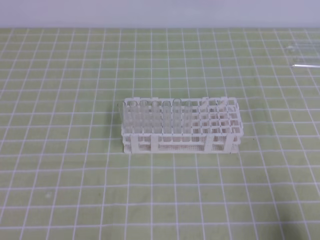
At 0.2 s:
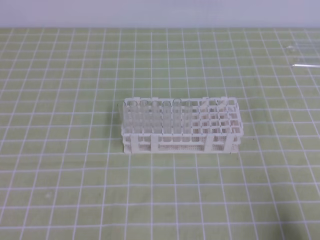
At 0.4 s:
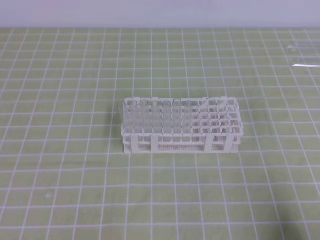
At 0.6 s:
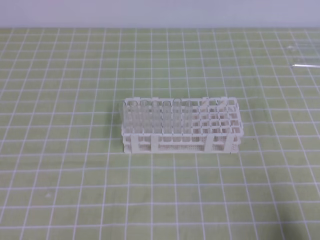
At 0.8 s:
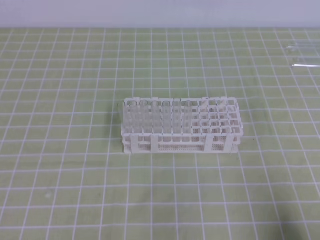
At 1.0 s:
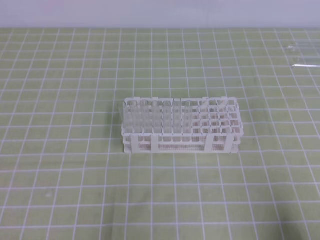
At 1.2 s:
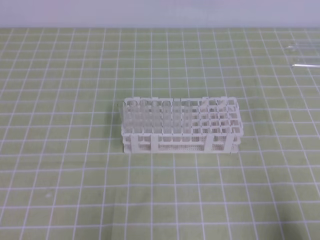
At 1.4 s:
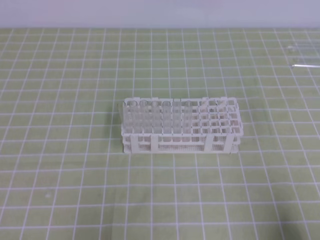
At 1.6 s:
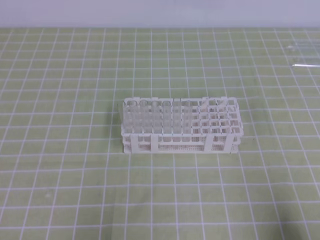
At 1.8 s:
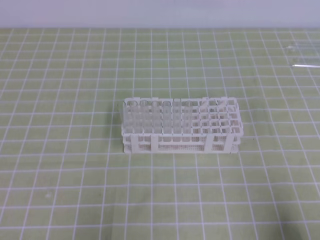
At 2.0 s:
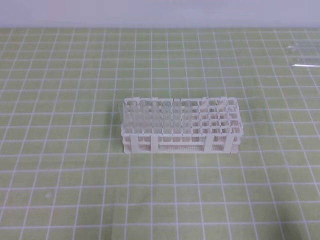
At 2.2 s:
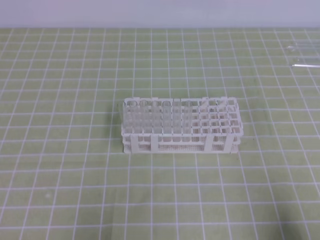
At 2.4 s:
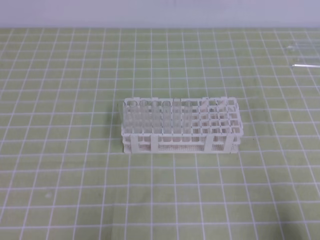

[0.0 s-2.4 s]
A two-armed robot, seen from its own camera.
1.2 to 2.4 s: The two grippers keep their place.

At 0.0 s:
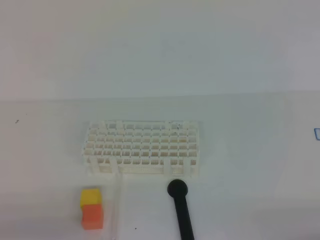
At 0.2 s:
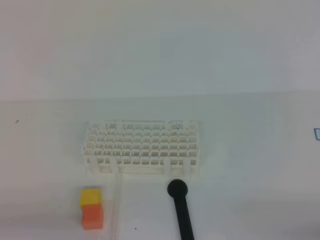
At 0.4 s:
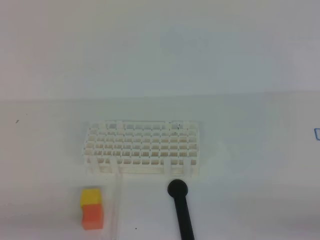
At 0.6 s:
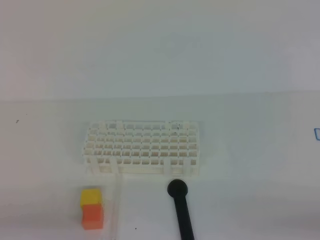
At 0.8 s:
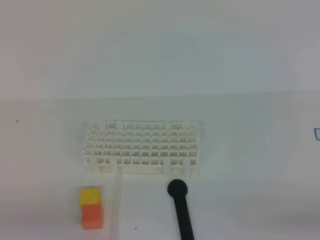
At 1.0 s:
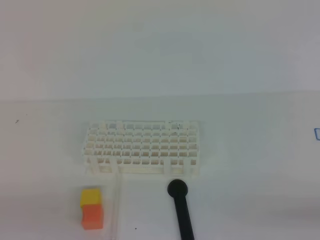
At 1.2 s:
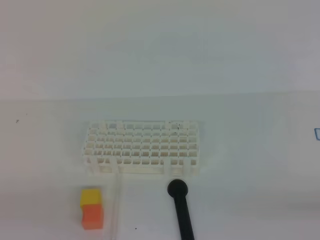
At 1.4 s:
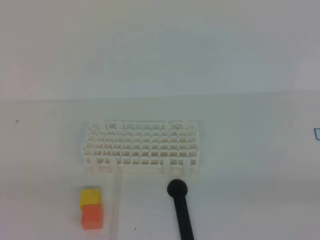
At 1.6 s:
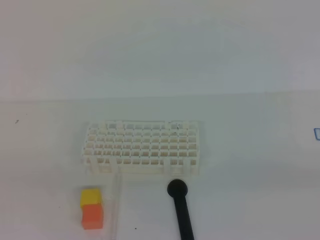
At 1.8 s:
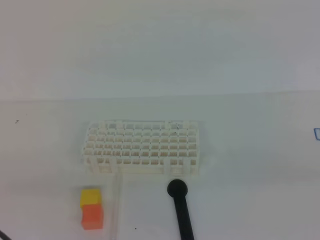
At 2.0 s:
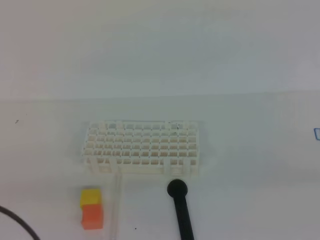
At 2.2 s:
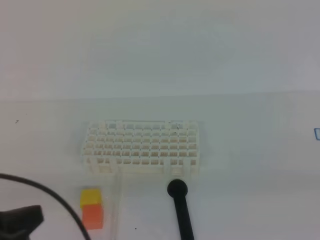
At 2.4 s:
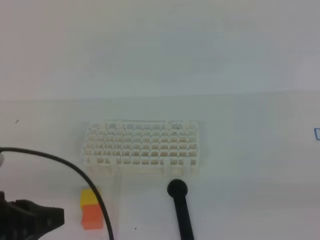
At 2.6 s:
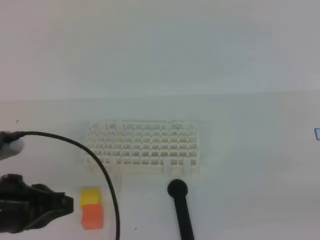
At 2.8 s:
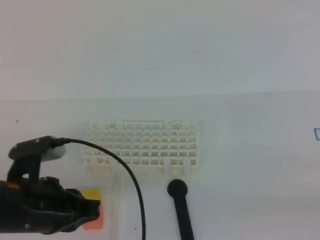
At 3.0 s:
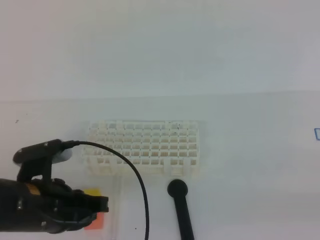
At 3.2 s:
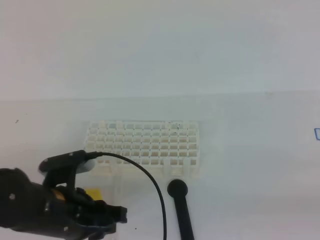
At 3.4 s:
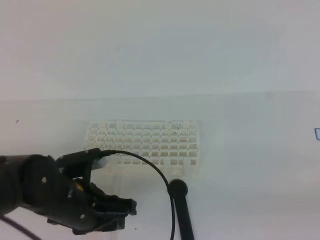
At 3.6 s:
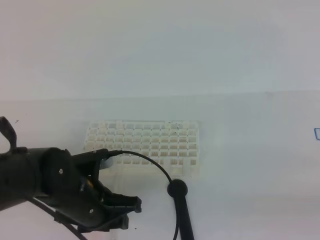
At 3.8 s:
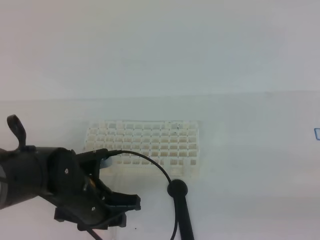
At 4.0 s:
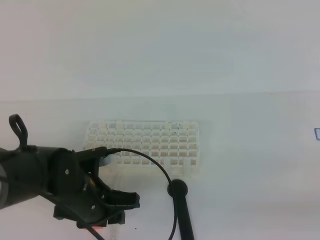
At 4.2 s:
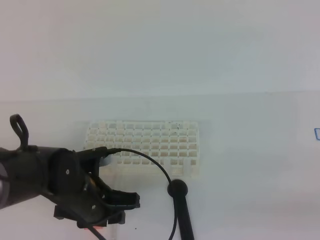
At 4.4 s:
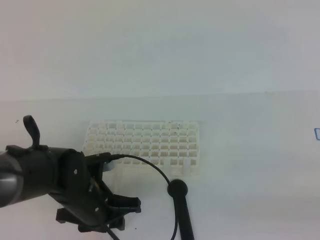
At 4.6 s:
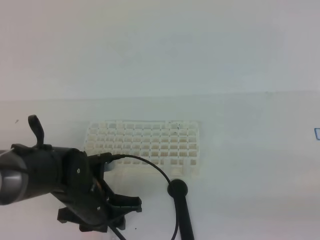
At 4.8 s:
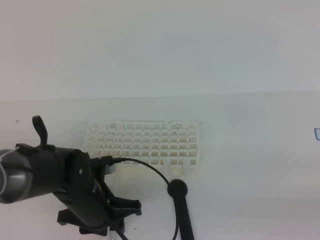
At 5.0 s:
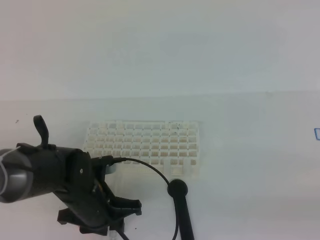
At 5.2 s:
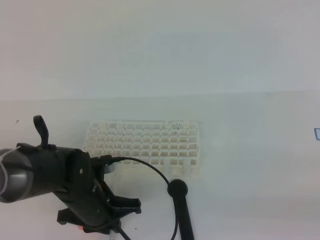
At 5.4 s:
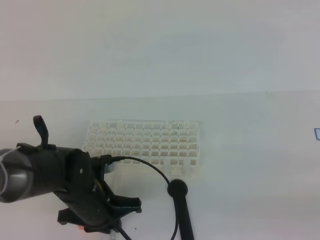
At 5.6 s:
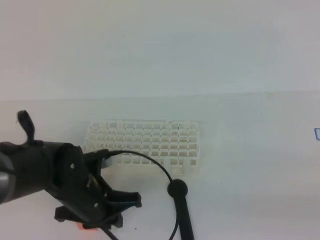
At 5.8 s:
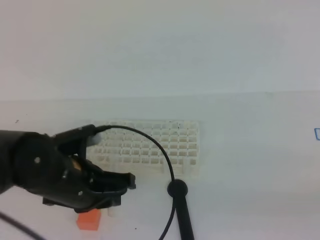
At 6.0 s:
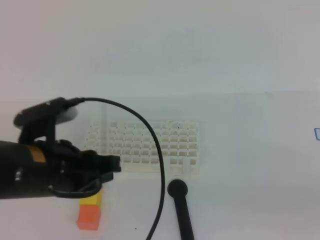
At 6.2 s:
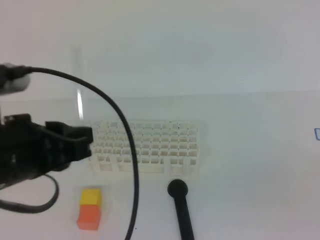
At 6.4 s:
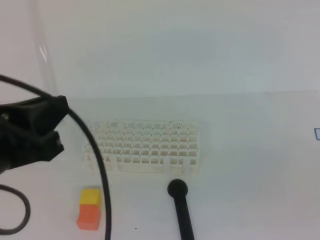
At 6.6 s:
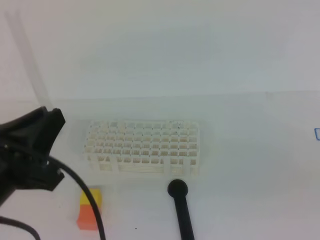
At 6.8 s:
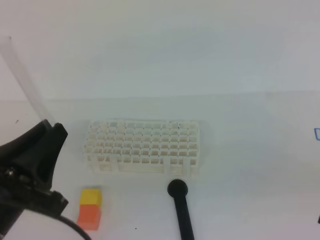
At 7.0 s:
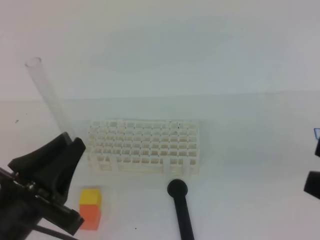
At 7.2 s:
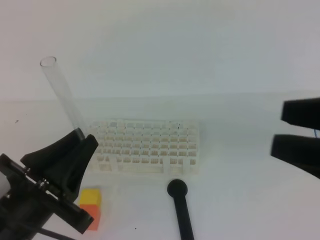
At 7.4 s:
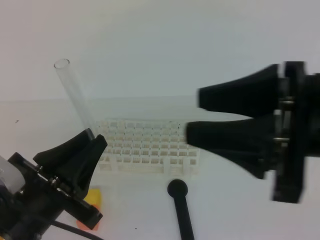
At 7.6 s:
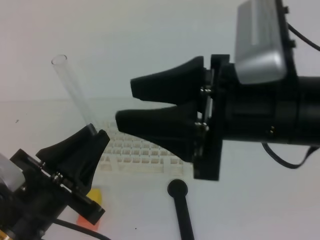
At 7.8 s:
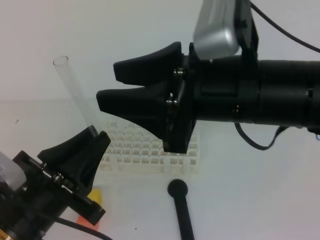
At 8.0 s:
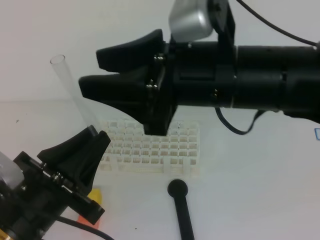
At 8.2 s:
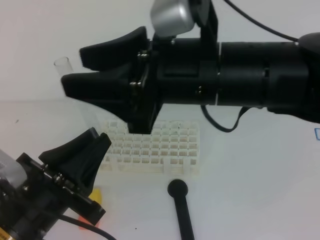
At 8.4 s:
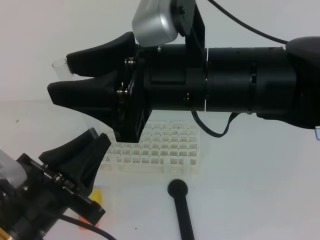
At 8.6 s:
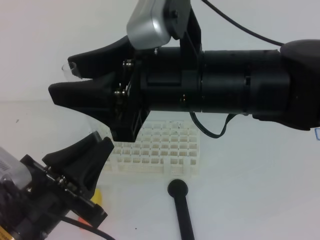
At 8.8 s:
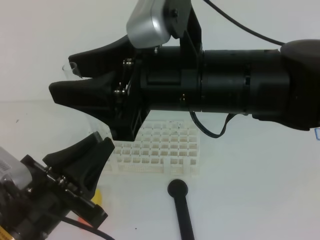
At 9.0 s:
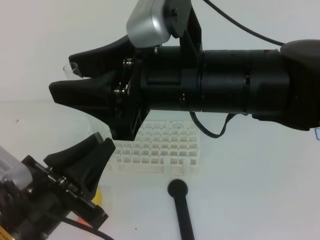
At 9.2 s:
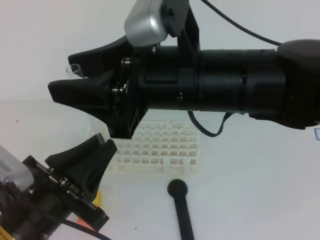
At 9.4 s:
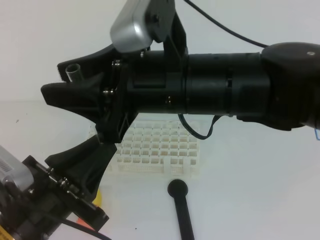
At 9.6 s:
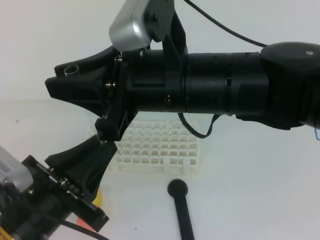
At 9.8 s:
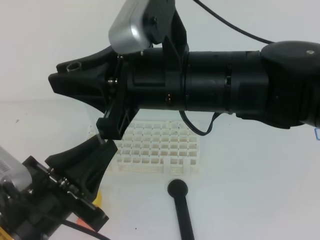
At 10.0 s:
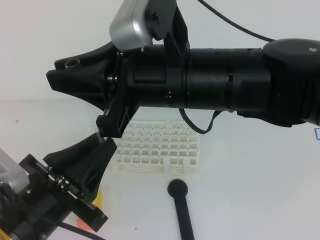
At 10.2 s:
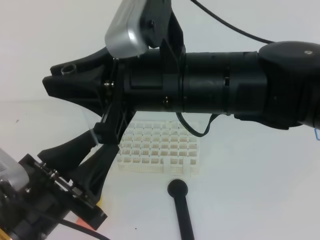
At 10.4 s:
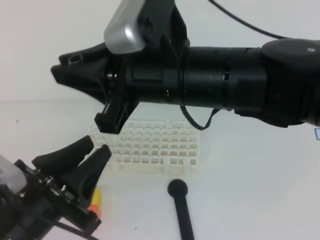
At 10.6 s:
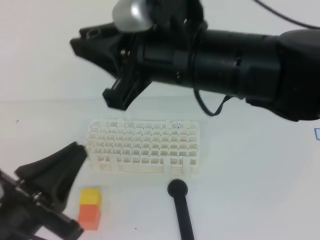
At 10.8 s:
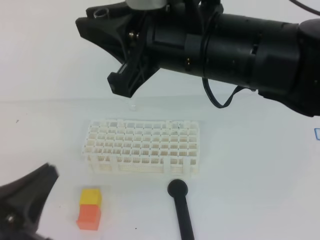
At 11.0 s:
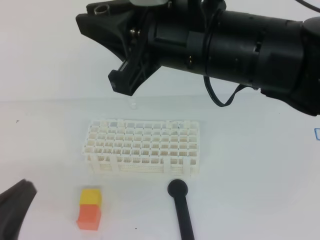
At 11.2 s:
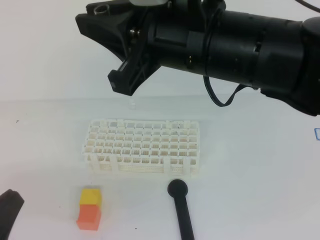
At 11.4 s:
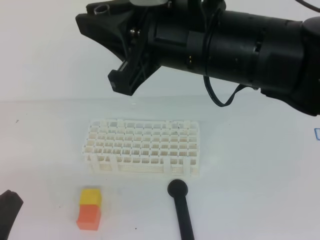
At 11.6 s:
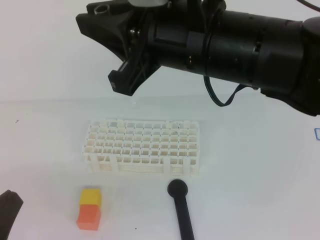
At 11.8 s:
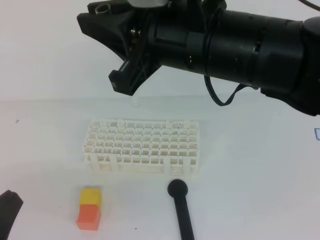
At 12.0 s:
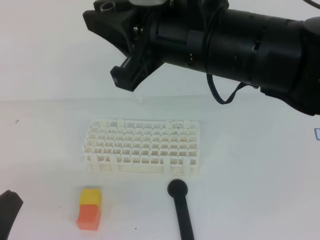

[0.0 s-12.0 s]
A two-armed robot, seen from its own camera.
1.6 to 3.0 s: The left gripper shifts approximately 20 cm forward, to the right and downward.
3.0 to 4.4 s: The right gripper opens up. Meanwhile the left gripper travels downward, forward and to the right by approximately 10 cm, and opens.
4.4 to 6.0 s: The left gripper goes about 10 cm upward, and closes up.
6.0 to 7.6 s: The right gripper moves to the left, forward and upward, roughly 25 cm, and opens. Meanwhile the left gripper travels backward by roughly 5 cm, and moves approximately 5 cm upward and comes back.
7.6 to 9.0 s: The right gripper travels to the left by approximately 10 cm.
9.0 to 10.4 s: The left gripper opens up. The right gripper closes.
10.4 to 12.0 s: The left gripper heads to the left and backward, covering approximately 10 cm, and closes.

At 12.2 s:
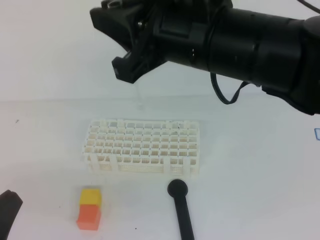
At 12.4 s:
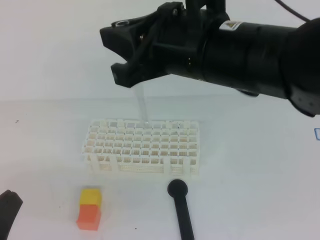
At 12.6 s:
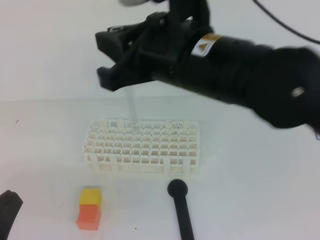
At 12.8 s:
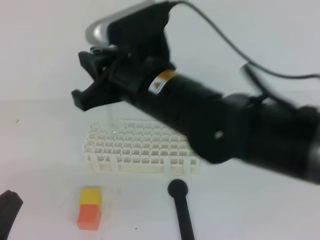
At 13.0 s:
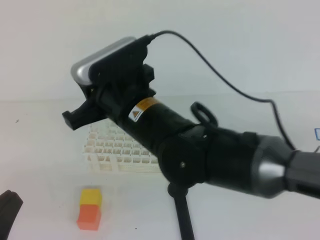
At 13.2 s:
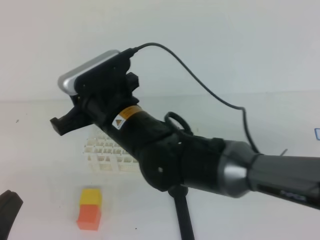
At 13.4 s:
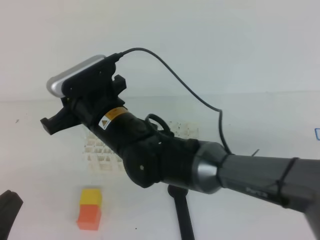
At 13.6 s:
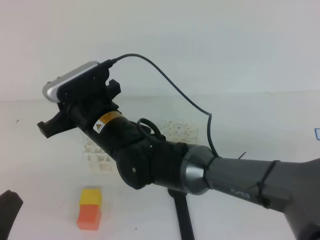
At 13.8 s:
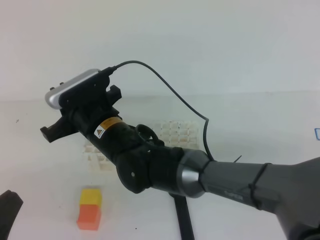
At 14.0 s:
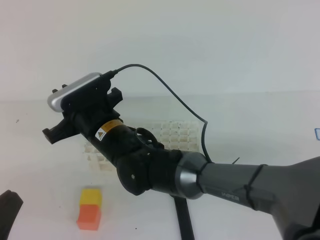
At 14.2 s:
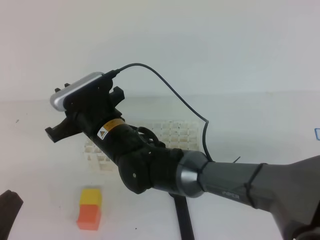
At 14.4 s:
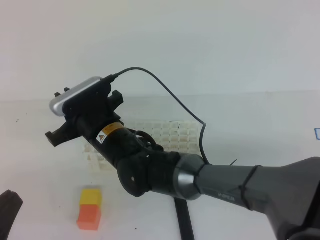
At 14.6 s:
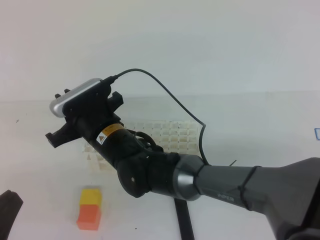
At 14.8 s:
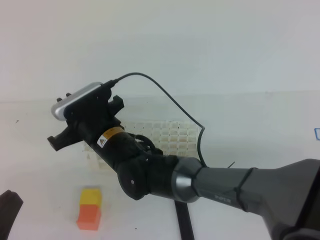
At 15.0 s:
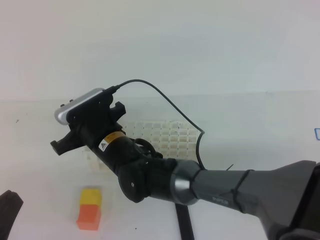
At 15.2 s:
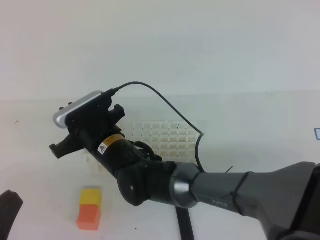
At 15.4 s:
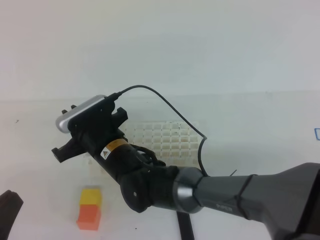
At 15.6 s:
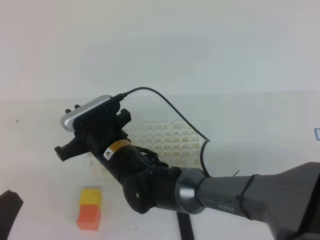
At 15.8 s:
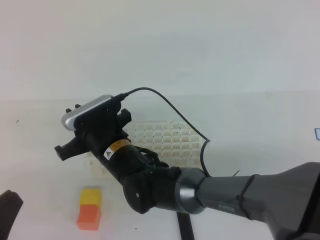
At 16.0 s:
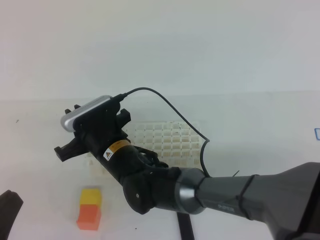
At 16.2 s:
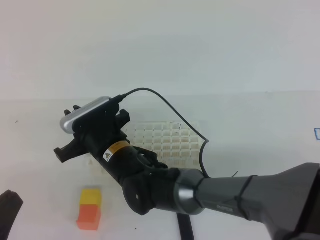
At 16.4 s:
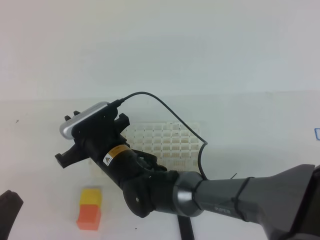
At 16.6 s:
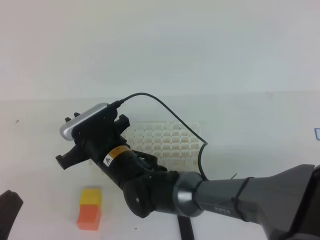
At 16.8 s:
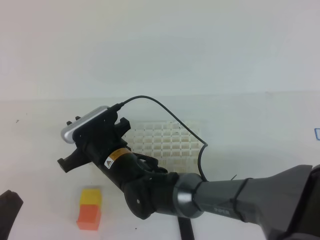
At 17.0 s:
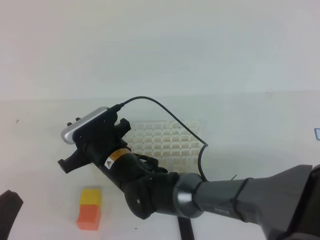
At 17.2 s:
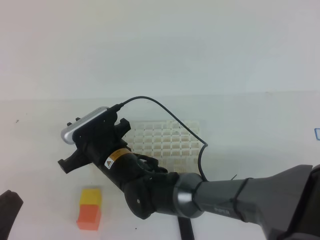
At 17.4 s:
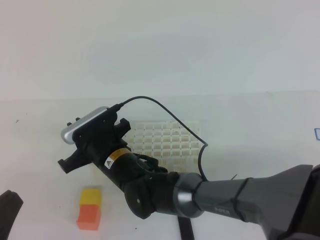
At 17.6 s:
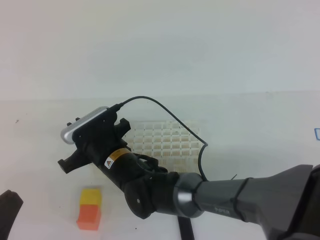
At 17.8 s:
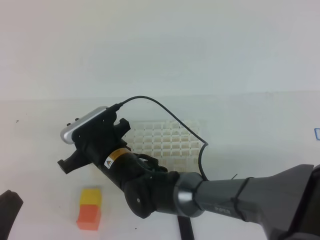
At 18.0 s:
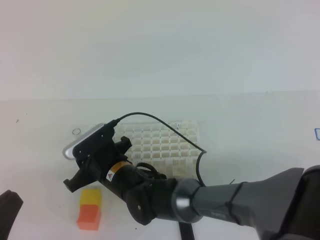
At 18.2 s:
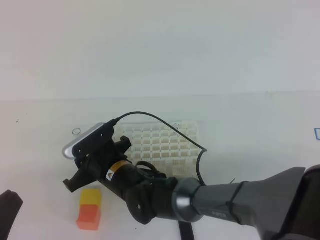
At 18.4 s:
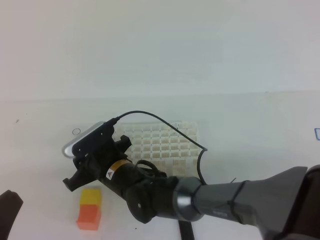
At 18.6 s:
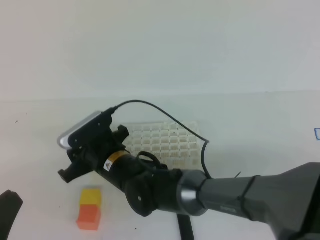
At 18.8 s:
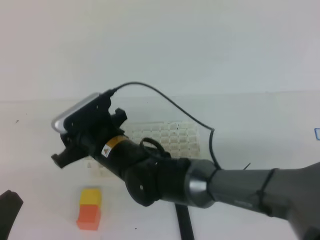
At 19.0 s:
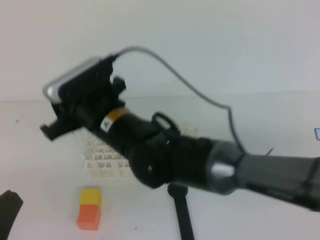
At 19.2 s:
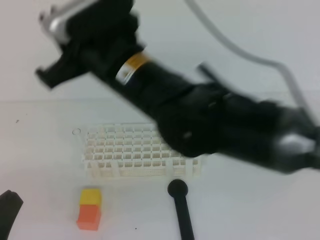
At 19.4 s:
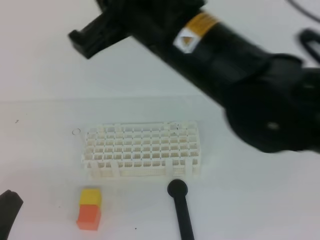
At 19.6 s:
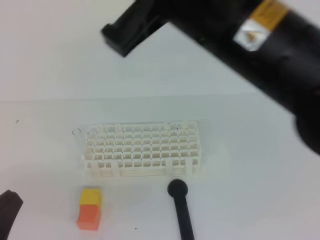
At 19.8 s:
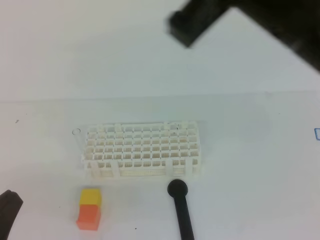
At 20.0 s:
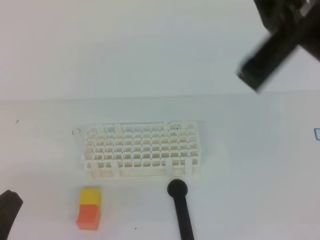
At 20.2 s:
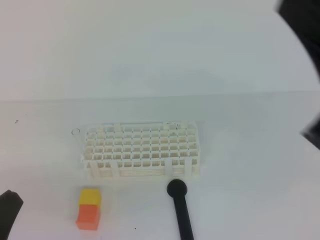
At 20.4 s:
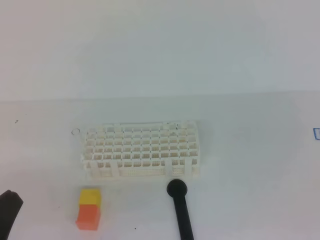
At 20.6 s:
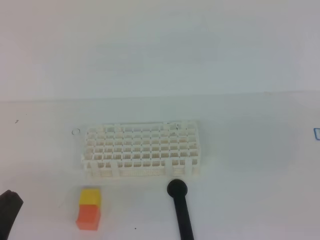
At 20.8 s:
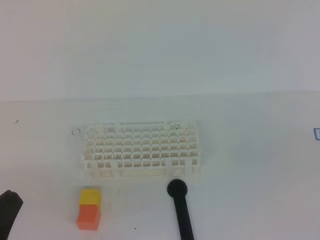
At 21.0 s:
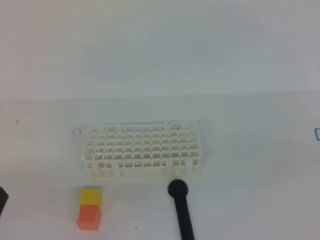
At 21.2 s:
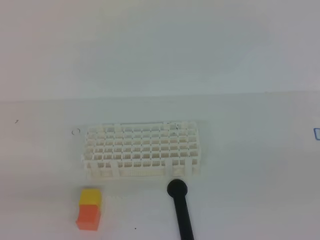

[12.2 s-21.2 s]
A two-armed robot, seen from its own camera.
12.2 to 13.8 s: The right gripper travels downward and to the left by some 25 cm.
13.8 to 15.2 s: The grippers move only a little.
15.2 to 18.2 s: There are only small adjustments of the grippers.
18.2 to 19.8 s: The right gripper moves upward and to the right, some 40 cm, and closes its fingers.
19.8 to 21.2 s: The right gripper shifts some 30 cm to the right, downward and backward.
